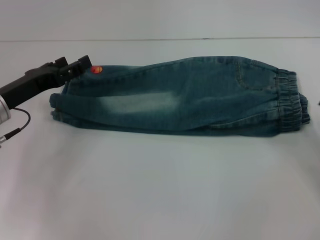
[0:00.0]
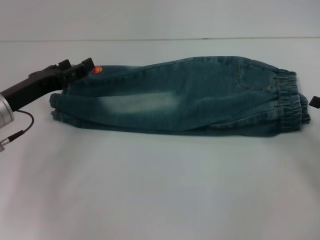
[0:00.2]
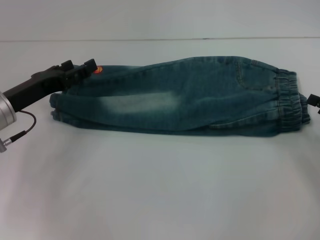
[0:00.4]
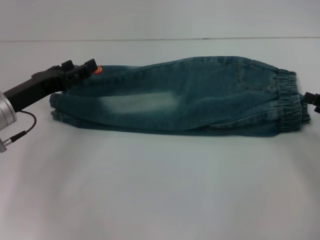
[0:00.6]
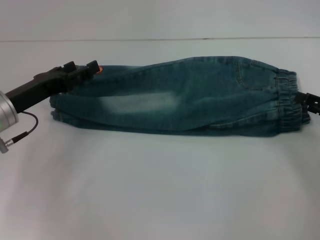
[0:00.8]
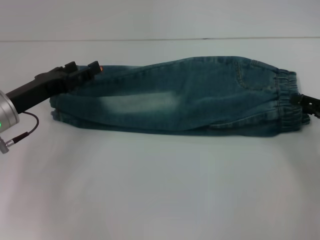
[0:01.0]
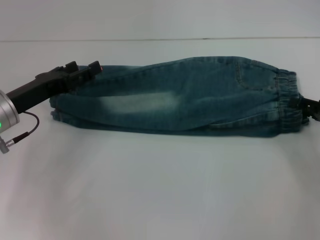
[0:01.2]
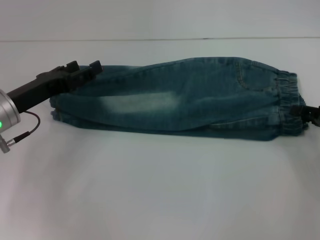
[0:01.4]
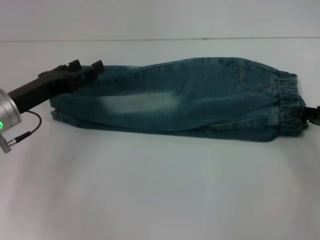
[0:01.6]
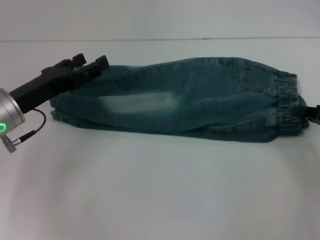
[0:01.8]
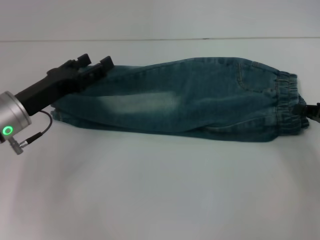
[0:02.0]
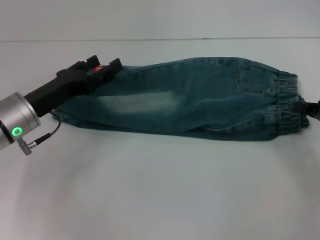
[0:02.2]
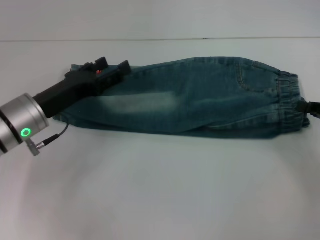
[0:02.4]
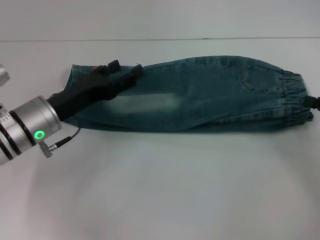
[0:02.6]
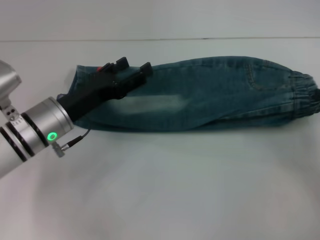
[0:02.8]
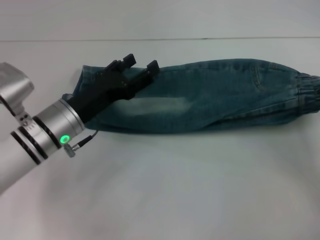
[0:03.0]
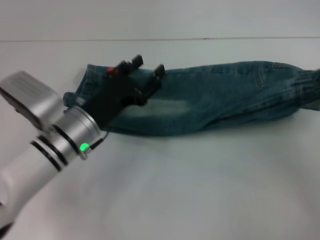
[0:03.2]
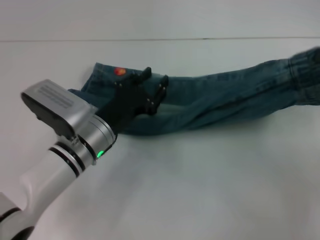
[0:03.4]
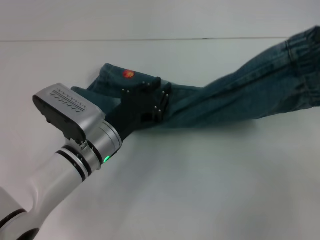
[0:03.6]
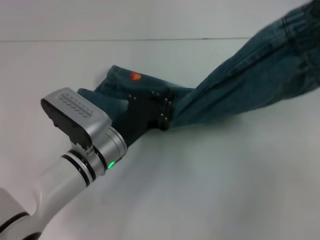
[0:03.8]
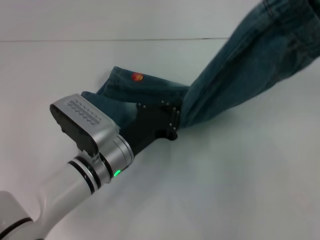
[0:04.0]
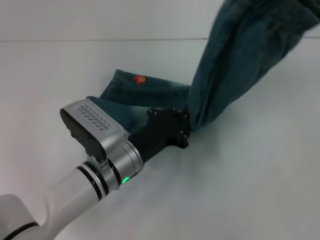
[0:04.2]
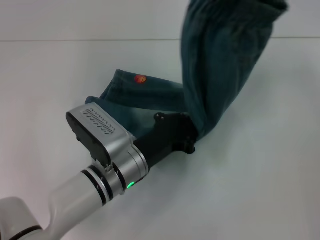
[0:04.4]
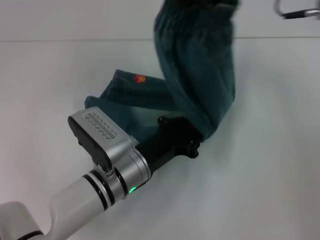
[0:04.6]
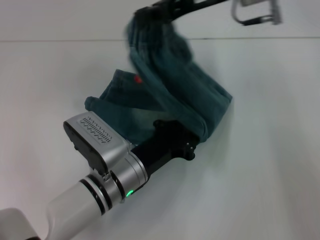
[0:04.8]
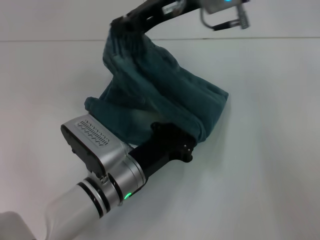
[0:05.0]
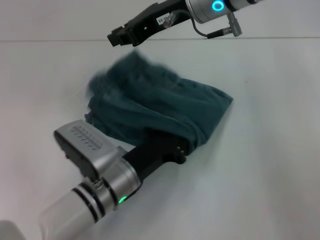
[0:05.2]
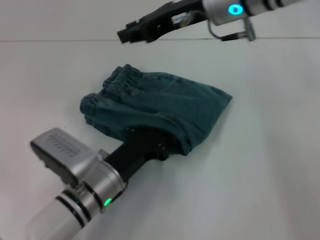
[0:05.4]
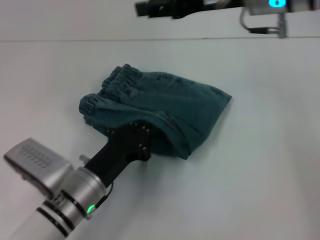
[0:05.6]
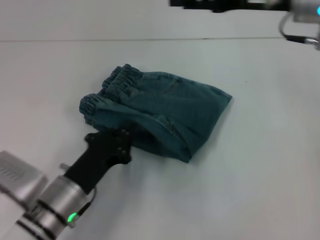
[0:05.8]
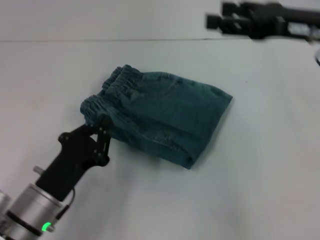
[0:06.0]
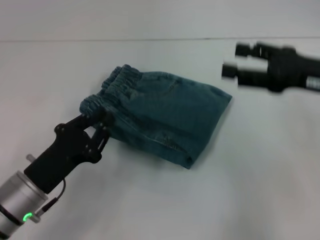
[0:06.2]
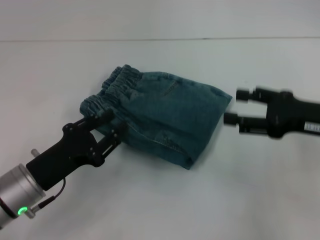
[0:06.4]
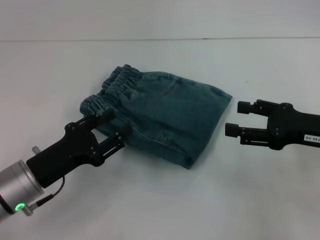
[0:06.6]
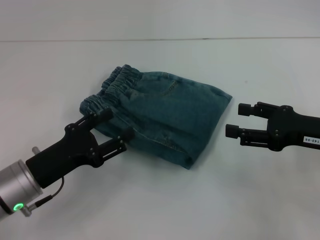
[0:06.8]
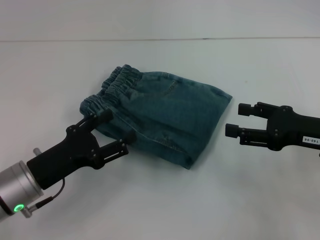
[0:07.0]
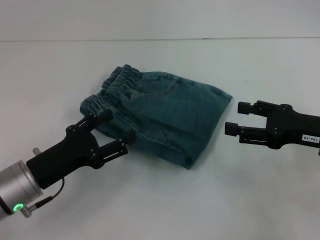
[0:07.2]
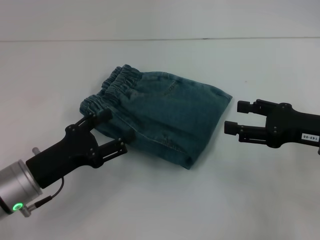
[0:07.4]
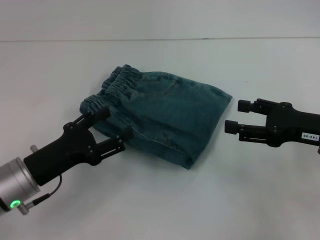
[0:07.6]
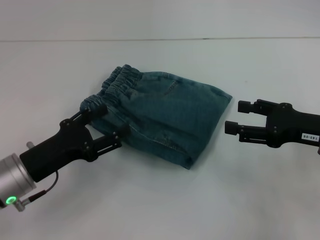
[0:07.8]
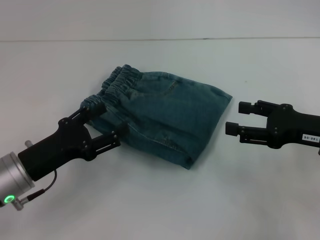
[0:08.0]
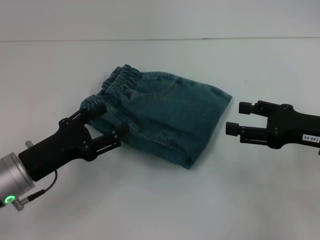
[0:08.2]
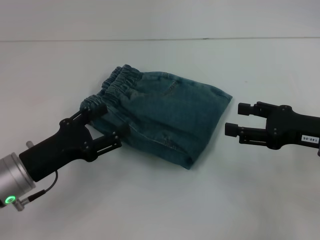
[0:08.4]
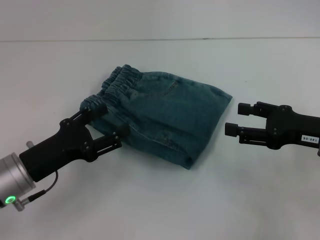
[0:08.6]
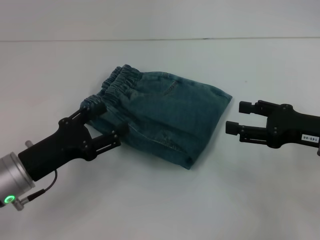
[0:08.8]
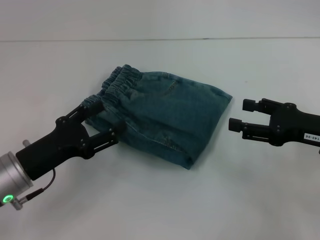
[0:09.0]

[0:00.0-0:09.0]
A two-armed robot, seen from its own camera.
Step, 0:00.0 to 0:02.2: Grab the waistband with your right hand.
Step, 0:02.4 to 0:05.2: Press the middle of the pants with your left hand.
0:00.0 to 0:01.6: The right gripper ends up roughly 5 cm from where it was.
0:01.6 to 0:03.0: The left gripper travels to the right by approximately 10 cm. The right gripper shifts by roughly 5 cm, and closes.
0:03.0 to 0:04.4: The right gripper is displaced upward, to the left and forward by some 25 cm, while the left gripper shifts roughly 10 cm to the right, and closes its fingers.
0:04.4 to 0:06.0: The left gripper shifts roughly 10 cm to the left and backward. Meanwhile the right gripper shifts roughly 5 cm downward, moves about 15 cm to the left and comes back, and opens its fingers.
0:06.0 to 0:07.6: The right gripper is displaced downward and backward by about 15 cm, while the left gripper ends up about 5 cm from where it was, and opens its fingers.
0:07.6 to 0:09.0: Both grippers stay about where they are.
